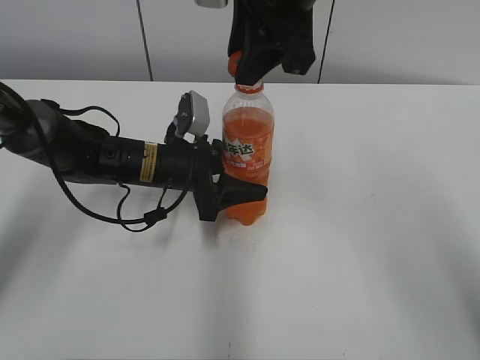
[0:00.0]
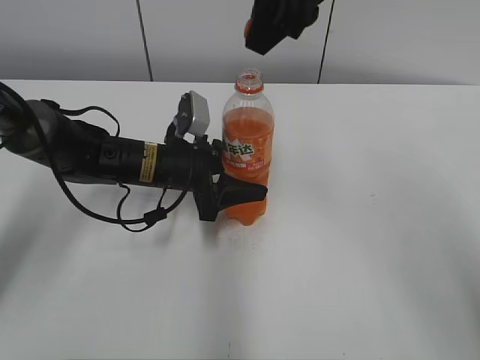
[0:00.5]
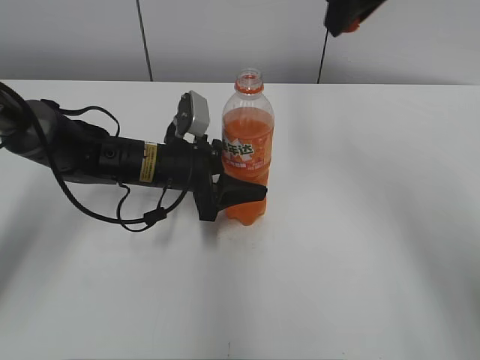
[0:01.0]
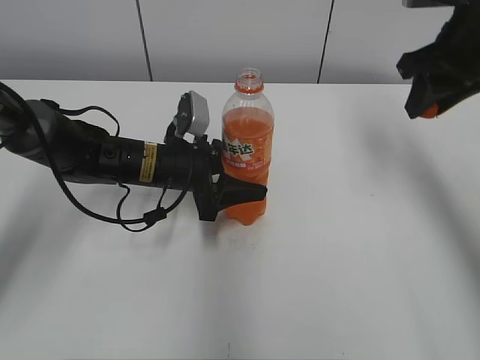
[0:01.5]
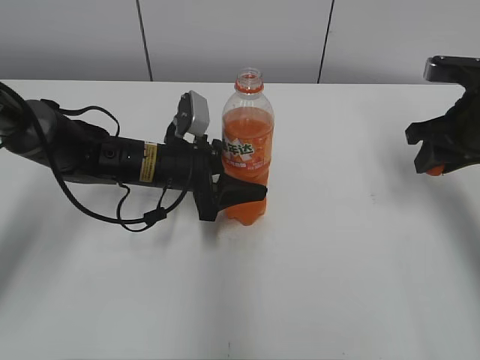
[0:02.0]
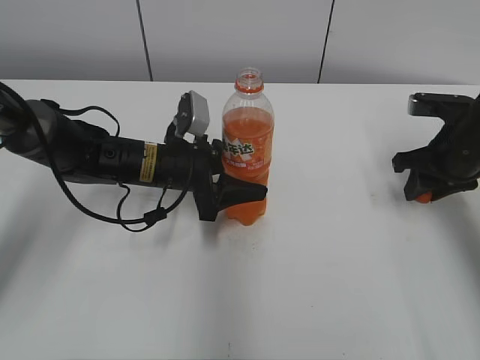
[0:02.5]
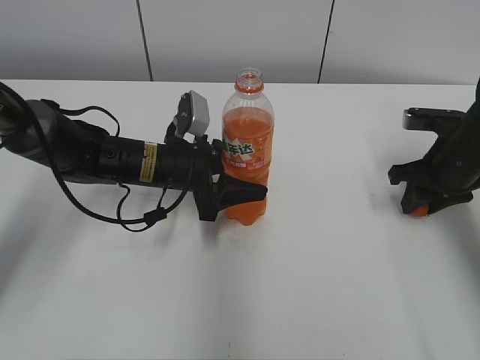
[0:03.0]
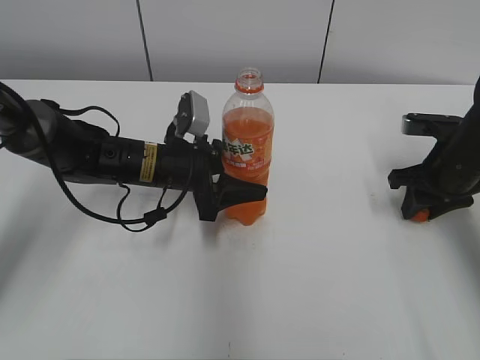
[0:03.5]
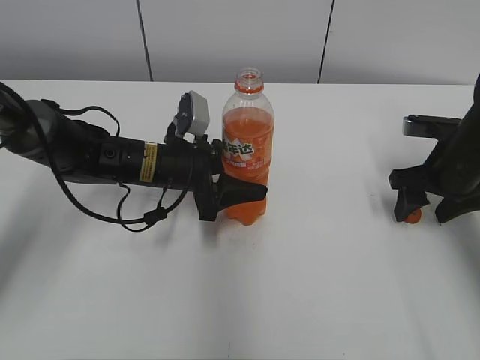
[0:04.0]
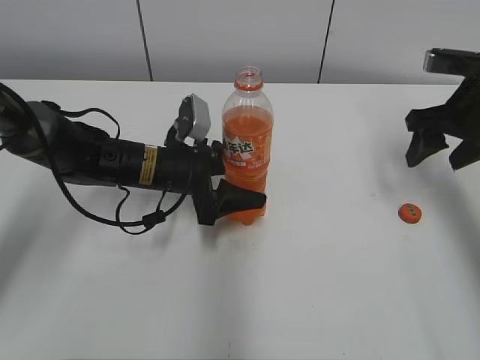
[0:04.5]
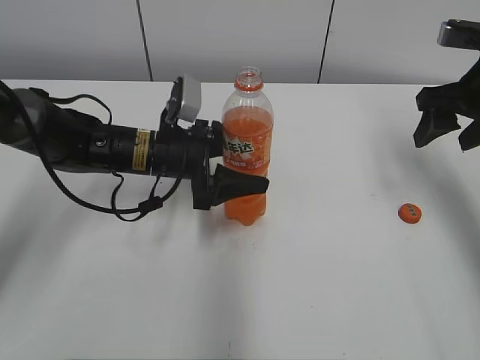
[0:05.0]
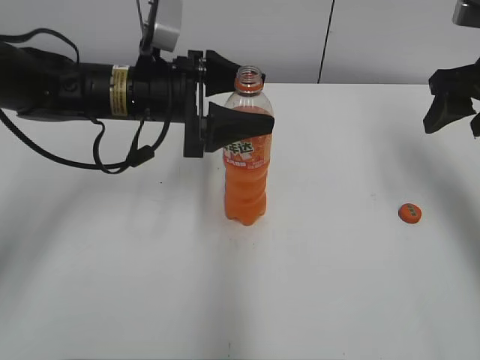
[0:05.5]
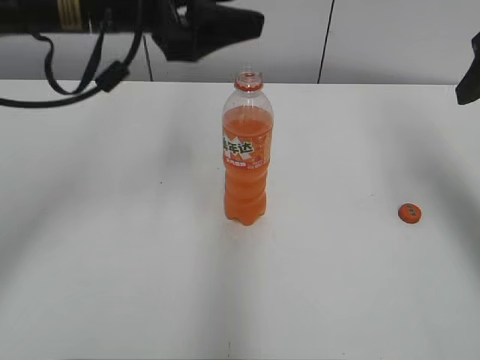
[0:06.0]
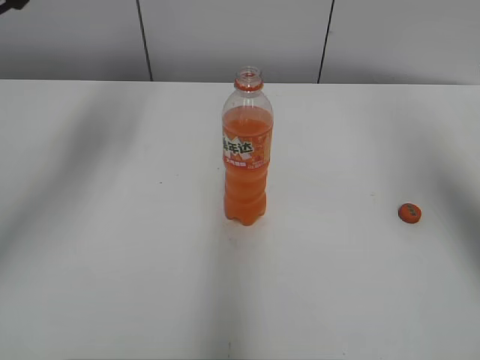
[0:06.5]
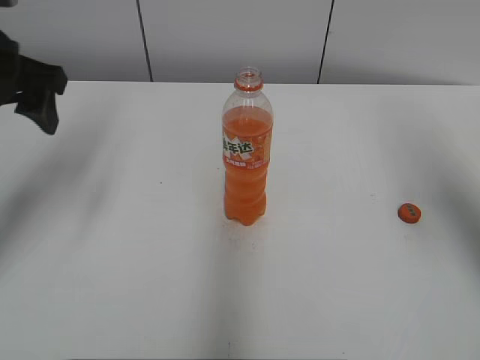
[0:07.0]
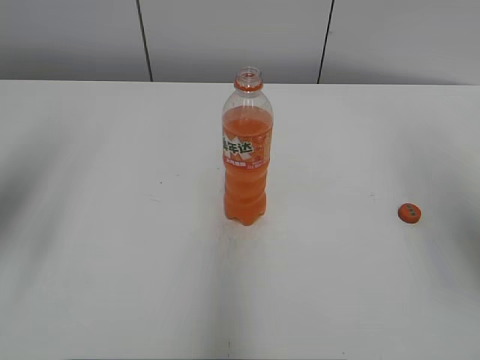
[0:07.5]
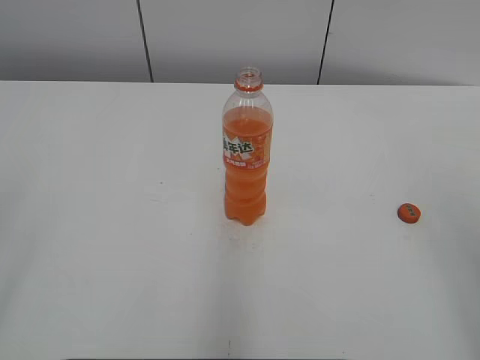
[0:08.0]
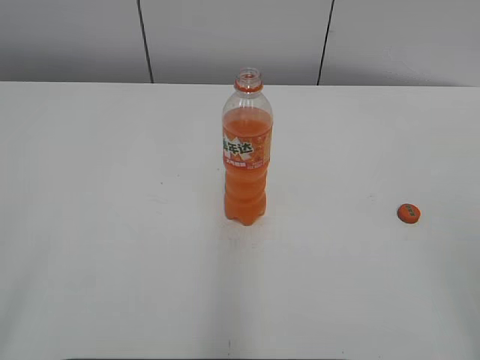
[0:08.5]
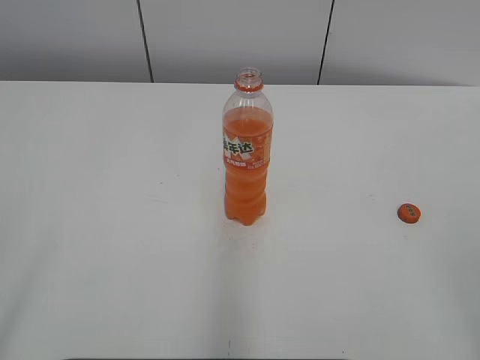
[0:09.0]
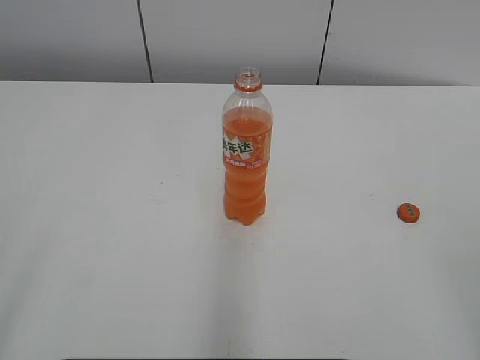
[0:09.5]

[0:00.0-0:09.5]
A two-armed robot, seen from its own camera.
Step, 0:00.0 to 0:03.5: Place the bottle cap on the right.
0:00.0 to 0:02.0: The right gripper shifts approximately 30 cm to the right and downward.
0:02.0 to 0:04.0: The right gripper heads downward, covering about 5 cm, and opens its fingers.
0:04.0 to 0:05.5: Both grippers move upward, approximately 10 cm. The left gripper opens up.
0:05.5 to 0:07.5: The right gripper shifts roughly 15 cm backward and upward. The left gripper goes roughly 25 cm to the left, upward and backward.
0:07.5 to 0:09.5: Both grippers move backward, approximately 25 cm.
